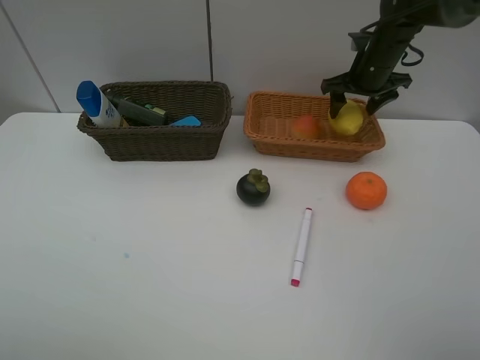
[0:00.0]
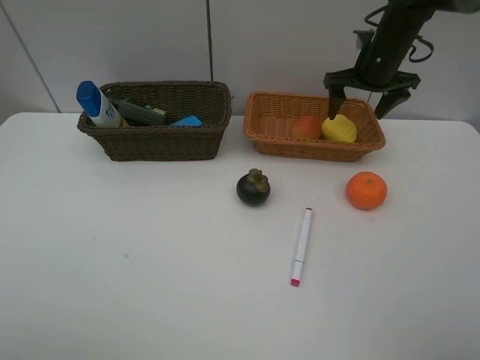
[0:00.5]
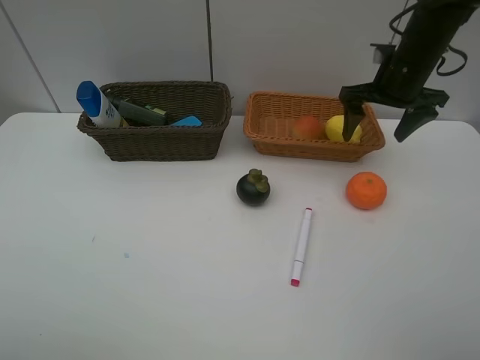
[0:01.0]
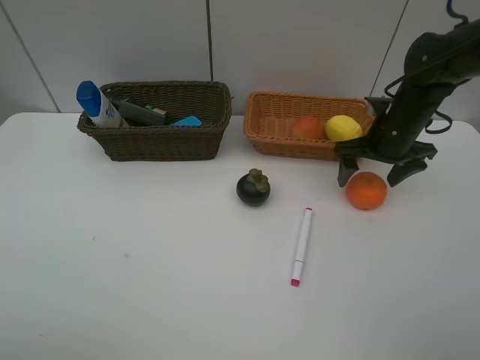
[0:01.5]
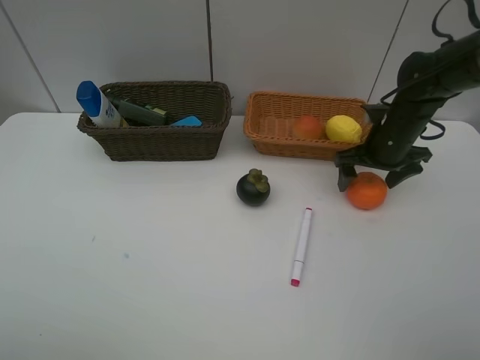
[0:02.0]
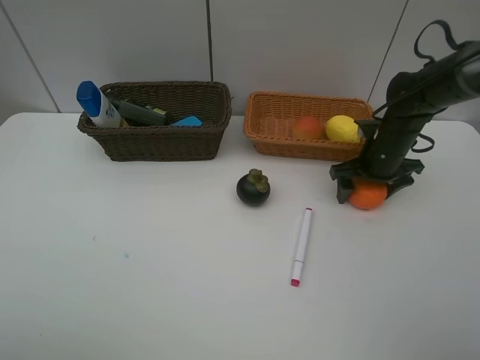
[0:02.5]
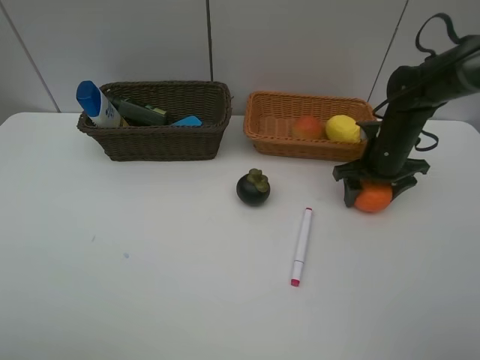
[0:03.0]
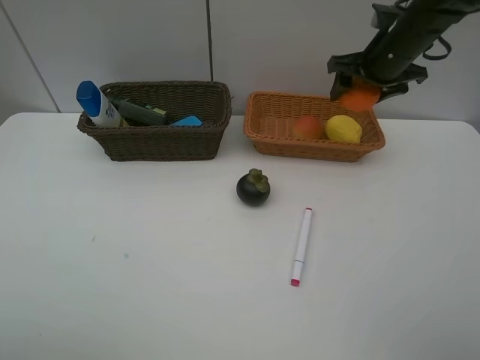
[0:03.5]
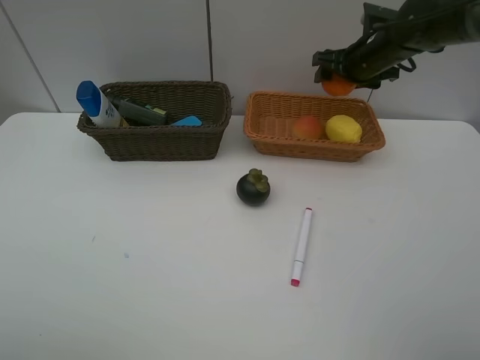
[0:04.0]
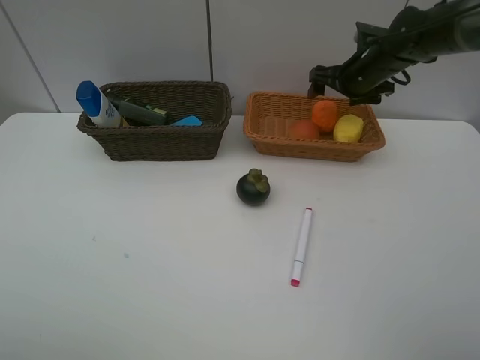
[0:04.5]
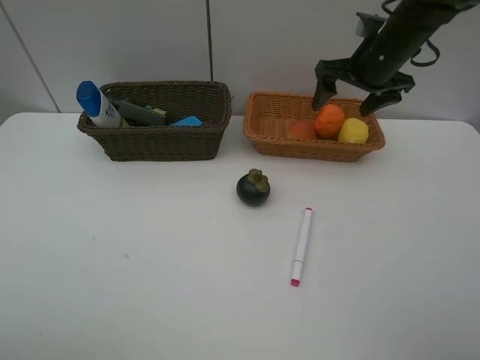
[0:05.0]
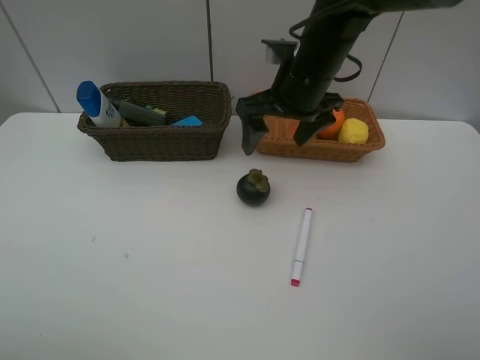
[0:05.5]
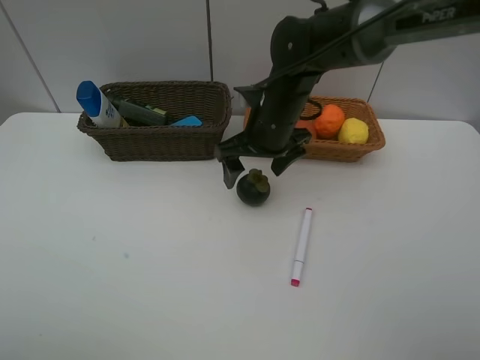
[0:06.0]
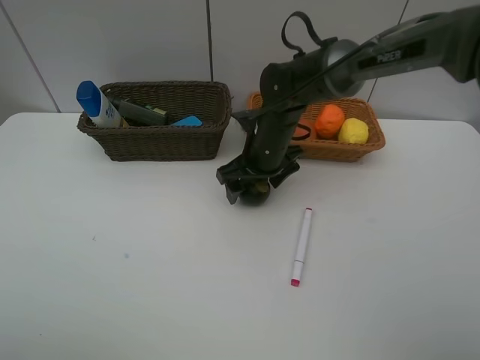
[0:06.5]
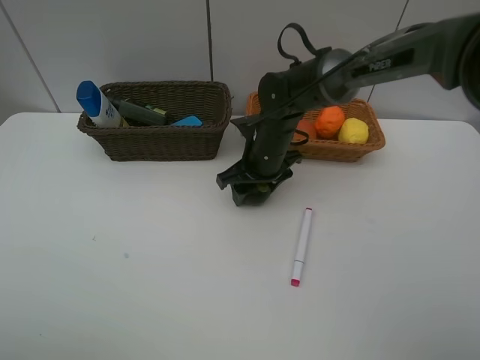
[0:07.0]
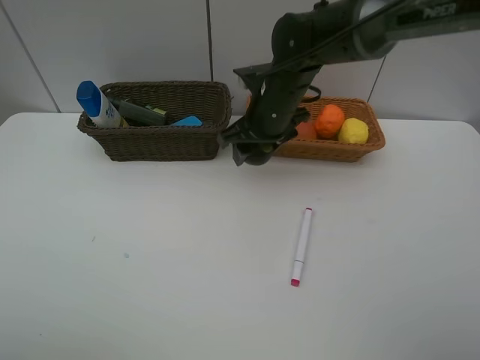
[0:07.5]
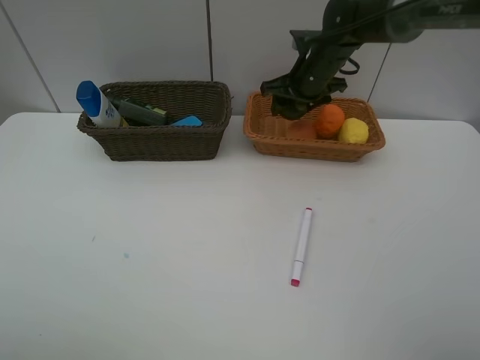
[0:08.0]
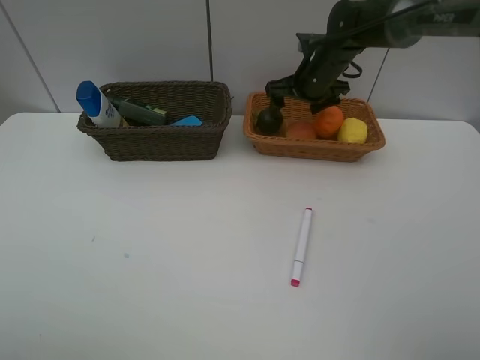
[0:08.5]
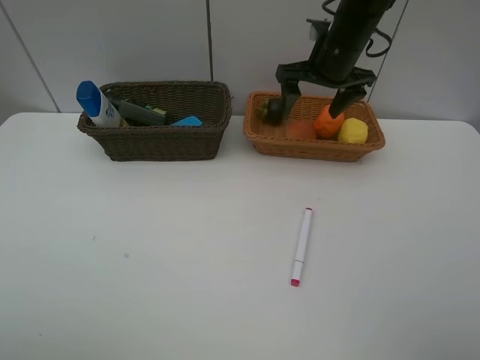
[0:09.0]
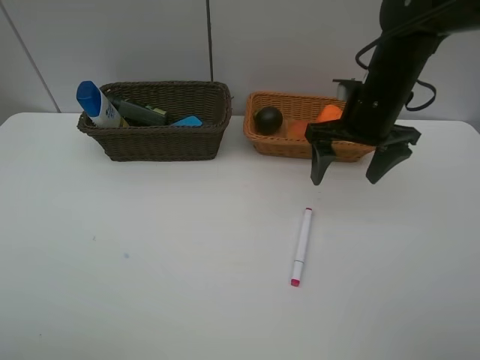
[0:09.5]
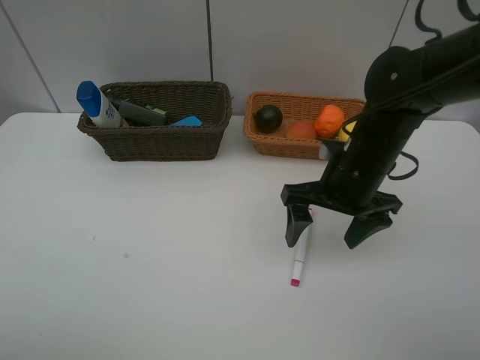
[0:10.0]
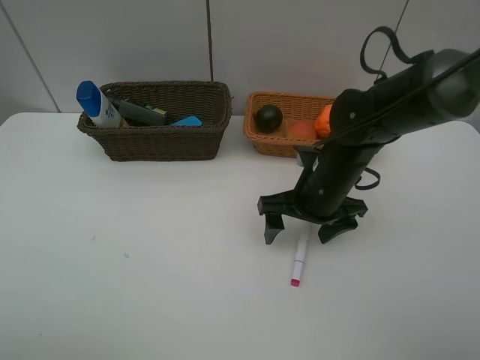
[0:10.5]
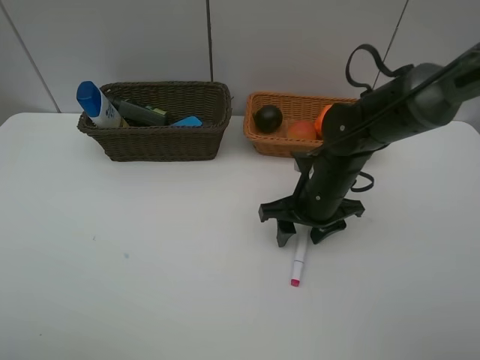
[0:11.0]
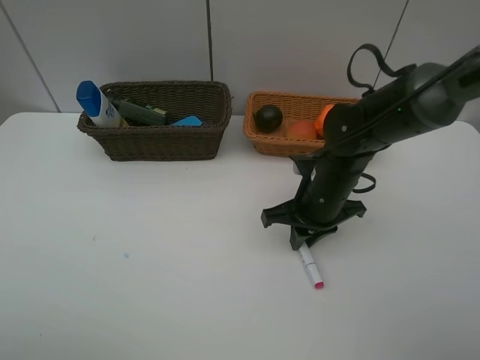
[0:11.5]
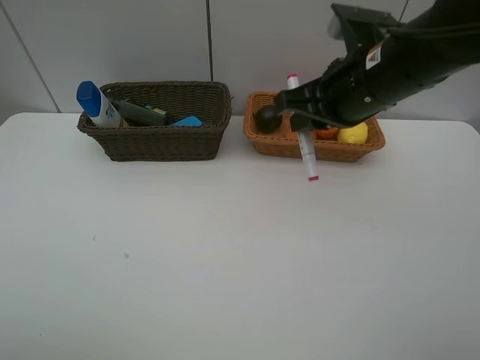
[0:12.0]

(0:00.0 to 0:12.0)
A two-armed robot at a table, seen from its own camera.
Task of the whole recording: Place multiple objects separately in different baskets.
Step, 0:01.0 - 0:03.0: Pick up the orange with right gripper.
Step, 0:03.5 - 0:04.5: Place the orange in the light basket with right gripper.
Step, 0:05.0 - 0:07.0: Pick up the mangosteen with right gripper.
Step, 0:07.5 - 0:08.5: Place the mangosteen in the light basket with right gripper.
Step, 0:09.0 - 0:11.5: Pick up the red marker with right gripper.
0:00.0 - 0:02.0: The right gripper moves backward and downward, roughly 15 cm.
0:02.0 - 0:04.0: The right gripper goes some 15 cm forward and upward.
0:04.0 - 0:06.0: The right gripper shifts roughly 20 cm to the left and backward.
0:06.0 - 0:08.0: The right gripper goes some 15 cm forward and to the right, and closes its fingers.
0:08.0 - 0:10.0: The right gripper goes some 20 cm backward, and opens up.
0:10.0 - 0:12.0: The right gripper shifts roughly 10 cm upward, and closes.

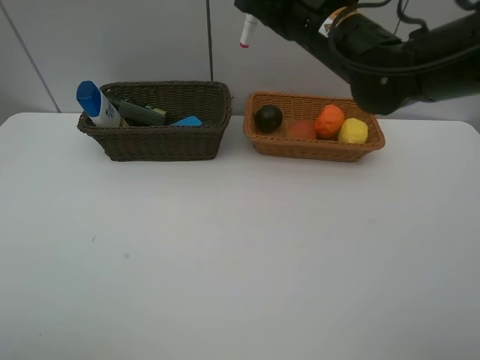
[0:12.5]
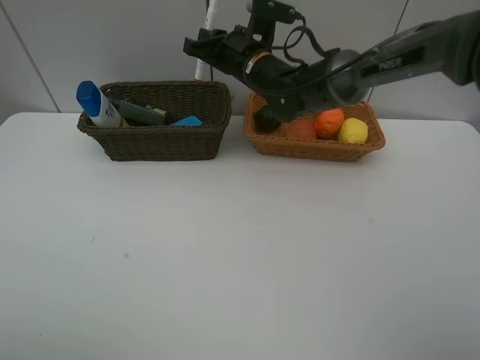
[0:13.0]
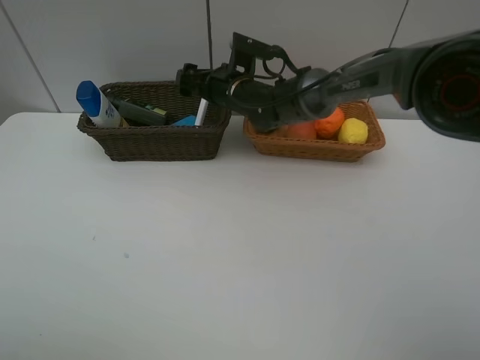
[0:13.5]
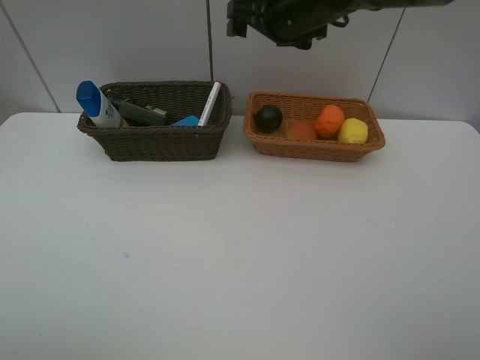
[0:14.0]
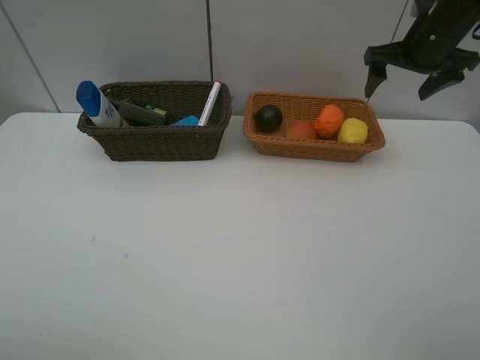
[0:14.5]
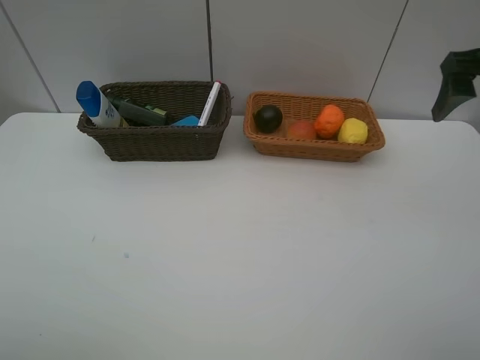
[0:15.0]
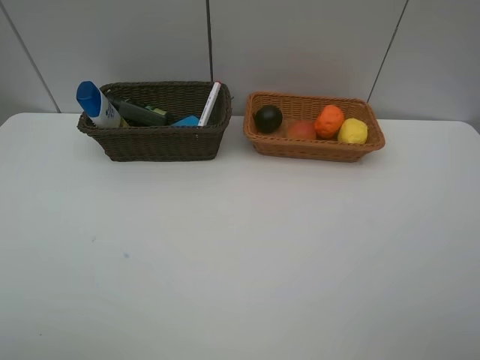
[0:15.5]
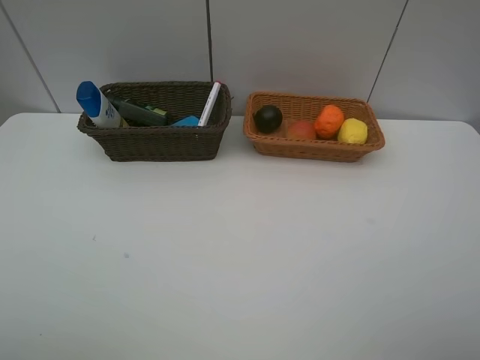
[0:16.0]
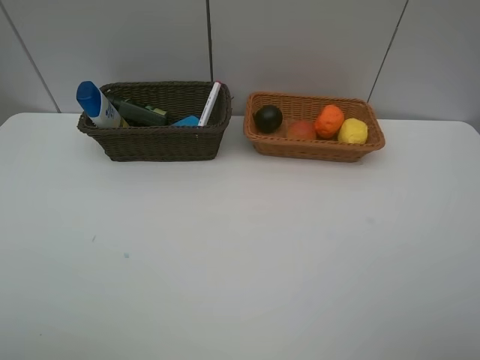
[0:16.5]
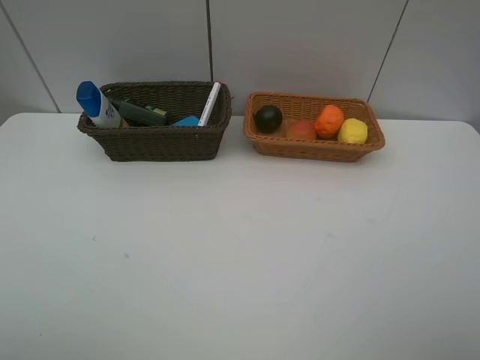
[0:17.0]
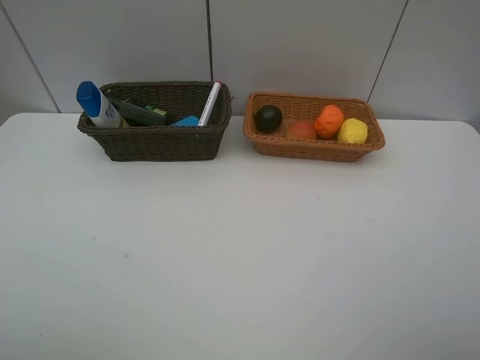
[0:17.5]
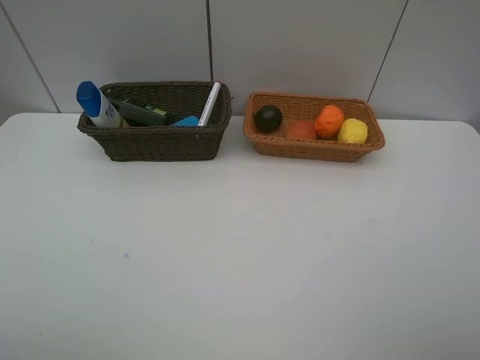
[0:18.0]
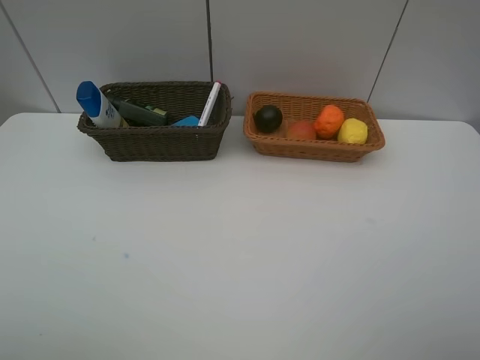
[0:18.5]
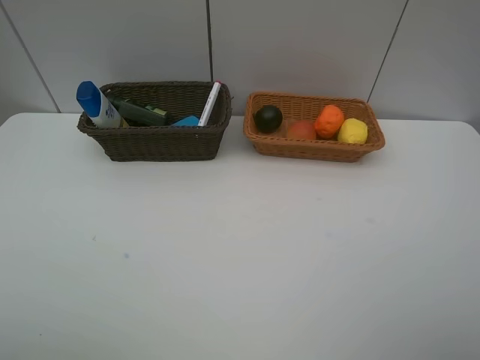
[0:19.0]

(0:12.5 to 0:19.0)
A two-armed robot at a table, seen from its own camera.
Task of the whole recording: Place multiple objects separately in different baskets.
Step, 0:12.5 - 0:13.5: Place the red marker in the dark basket with right gripper.
0:12.5 - 0:14.5: The right gripper travels to the right by some 20 cm, and opens its fingers.
0:14.5 - 0:17.0: The right gripper is displaced backward by roughly 40 cm.
0:17.0 - 0:19.0: The two grippers keep their place.
